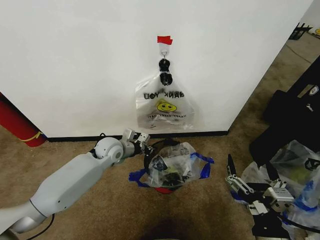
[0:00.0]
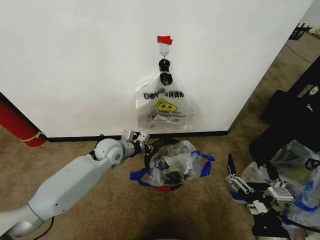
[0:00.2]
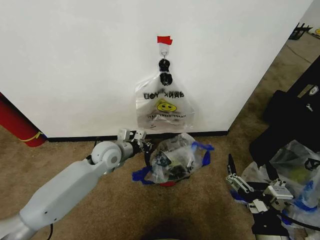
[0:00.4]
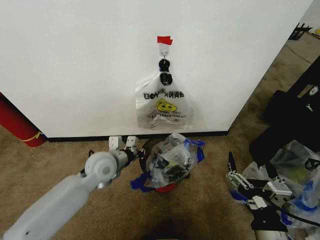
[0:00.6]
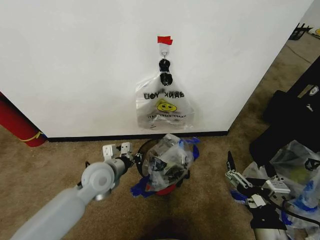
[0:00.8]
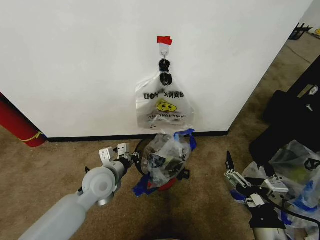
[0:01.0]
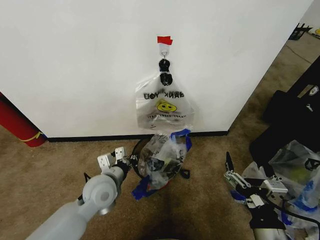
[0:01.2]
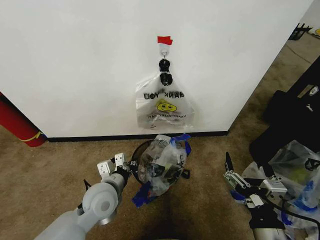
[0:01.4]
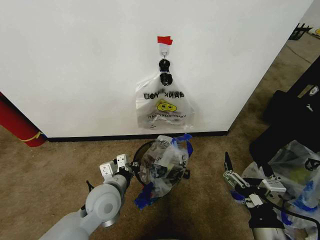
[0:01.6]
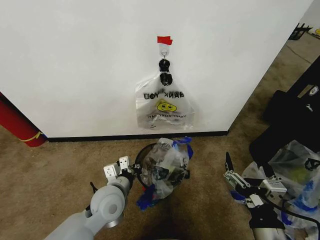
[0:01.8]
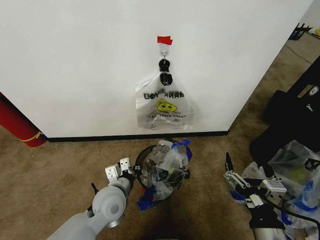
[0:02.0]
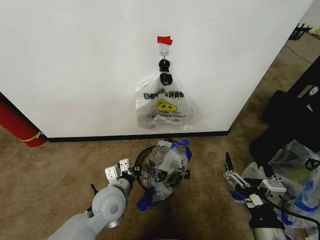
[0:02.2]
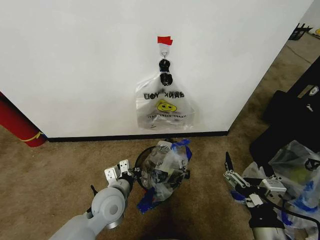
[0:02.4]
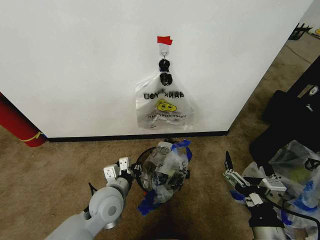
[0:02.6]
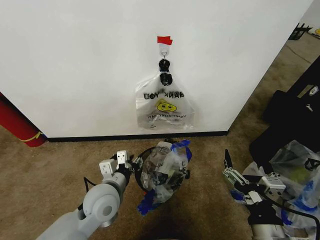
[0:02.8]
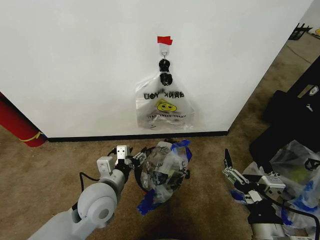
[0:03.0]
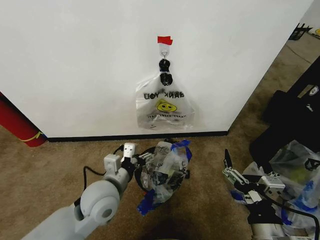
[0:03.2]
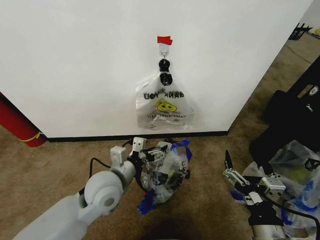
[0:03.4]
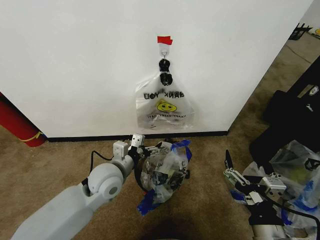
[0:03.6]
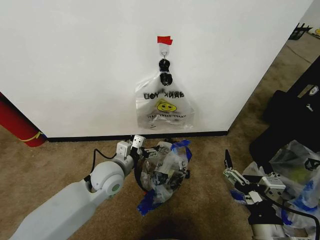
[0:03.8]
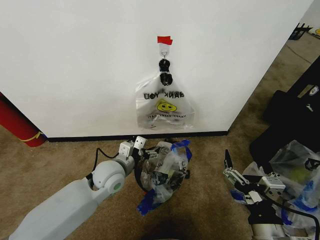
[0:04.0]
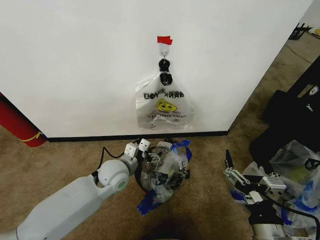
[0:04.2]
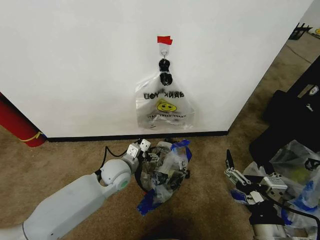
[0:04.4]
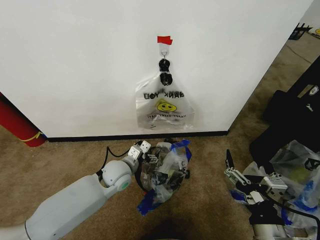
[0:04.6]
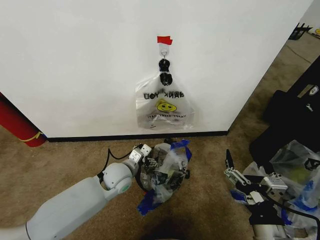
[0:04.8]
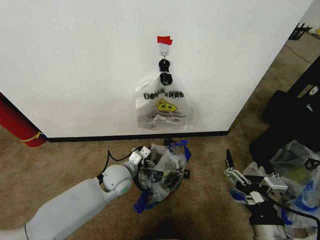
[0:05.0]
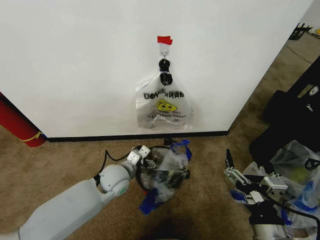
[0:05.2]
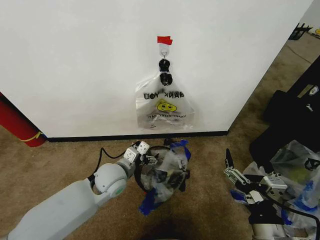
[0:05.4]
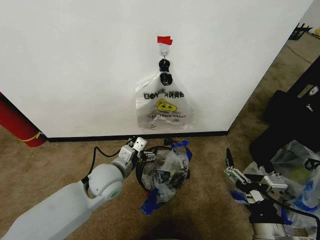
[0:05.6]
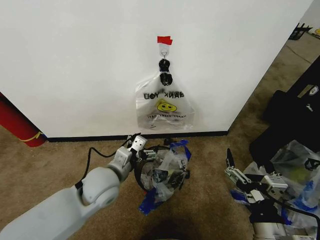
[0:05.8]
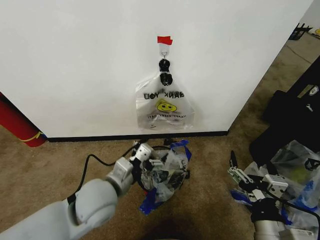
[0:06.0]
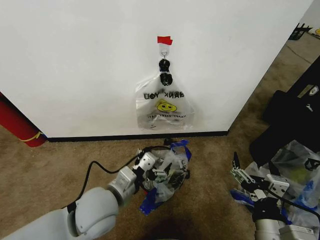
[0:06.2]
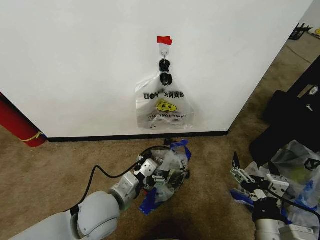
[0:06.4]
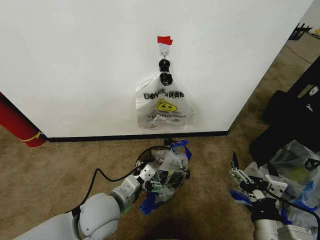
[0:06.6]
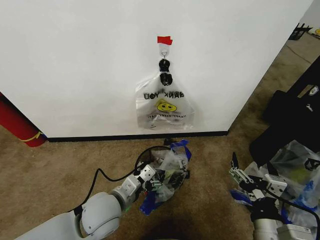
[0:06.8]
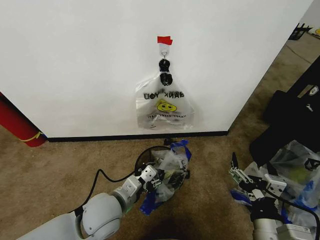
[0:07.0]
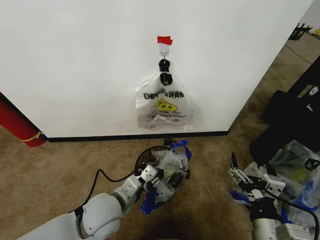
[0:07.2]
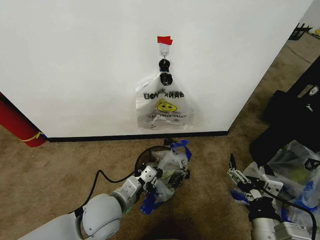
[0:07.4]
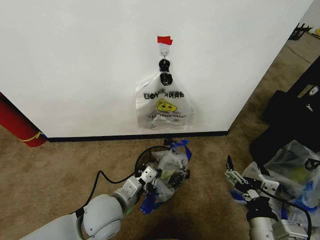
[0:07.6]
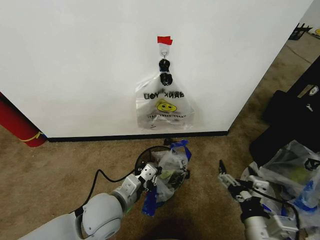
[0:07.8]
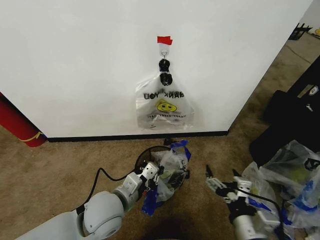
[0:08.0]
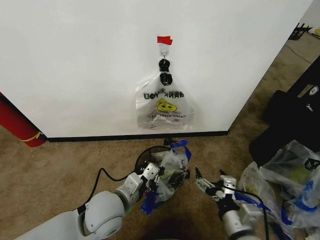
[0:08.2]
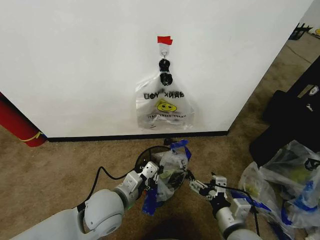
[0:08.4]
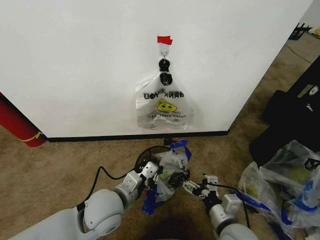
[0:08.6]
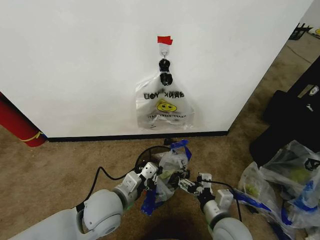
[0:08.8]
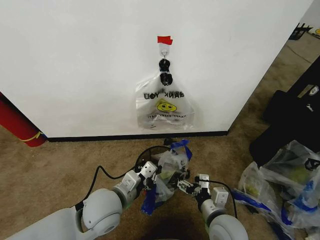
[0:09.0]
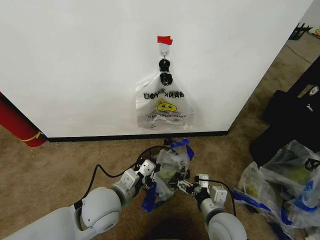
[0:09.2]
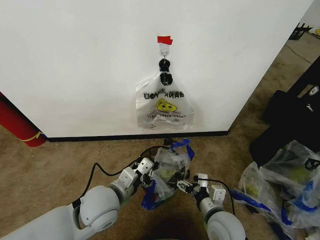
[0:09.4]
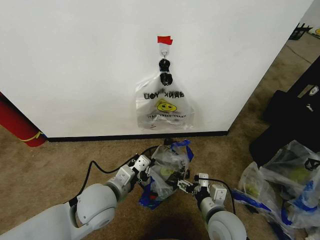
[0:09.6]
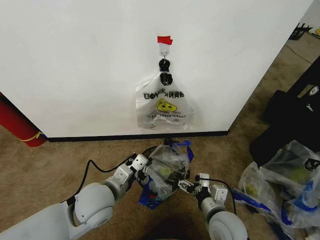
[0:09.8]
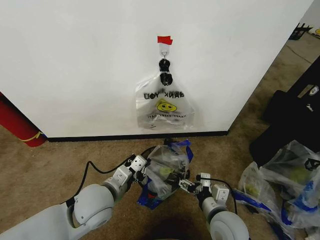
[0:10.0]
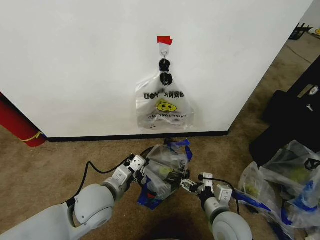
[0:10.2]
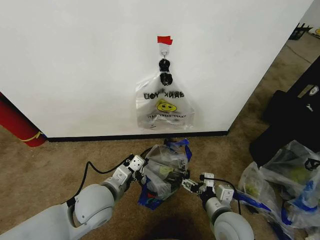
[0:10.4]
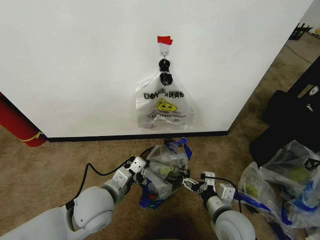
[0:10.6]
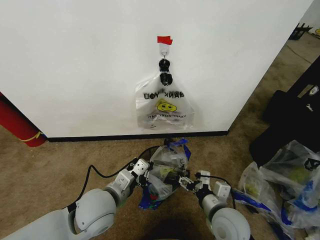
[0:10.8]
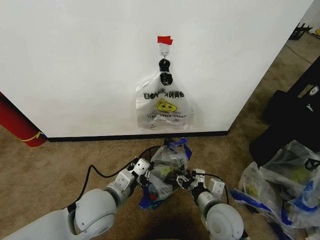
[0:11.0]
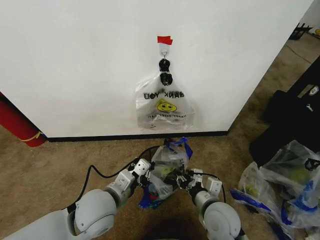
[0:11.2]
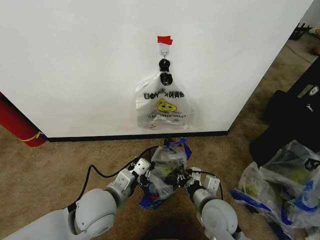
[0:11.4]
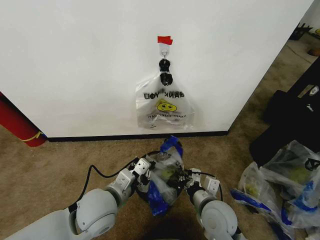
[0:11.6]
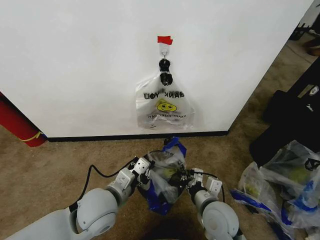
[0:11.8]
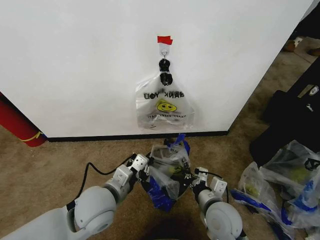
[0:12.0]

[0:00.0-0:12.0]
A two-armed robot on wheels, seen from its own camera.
Task of the whole recording: Pick up the garbage bag from the wall and place it over the trash bin.
0:00.0 to 0:01.6: The left gripper moves backward, approximately 20 cm.
0:01.6 to 0:03.0: The left gripper opens.
0:03.0 to 0:04.4: The left gripper moves forward and downward, approximately 10 cm.
0:04.4 to 0:06.0: The left gripper heads backward and upward, covering approximately 15 cm.
0:06.0 to 0:07.6: The left gripper changes place by about 5 cm, and closes its fingers.
0:07.6 to 0:09.0: The right gripper shifts roughly 15 cm forward, downward and to the left.
0:09.0 to 0:10.4: The grippers stay close to where they were, moving slightly.
0:10.4 to 0:12.0: The right gripper closes.

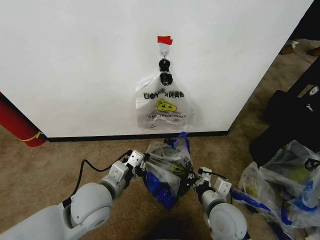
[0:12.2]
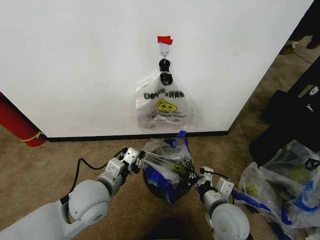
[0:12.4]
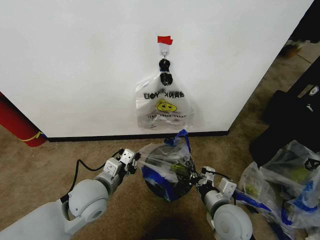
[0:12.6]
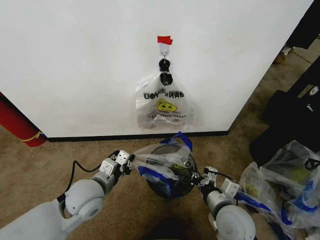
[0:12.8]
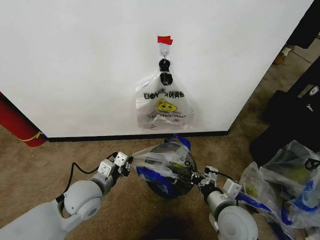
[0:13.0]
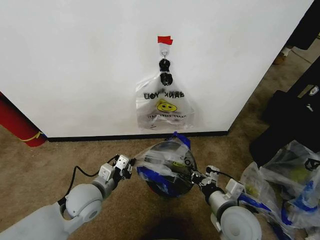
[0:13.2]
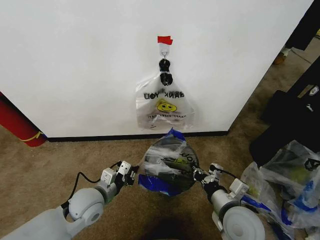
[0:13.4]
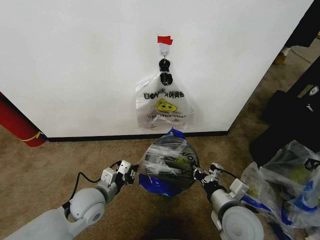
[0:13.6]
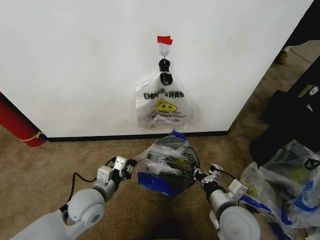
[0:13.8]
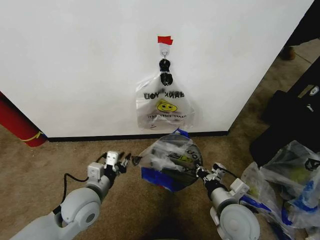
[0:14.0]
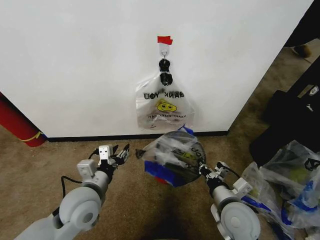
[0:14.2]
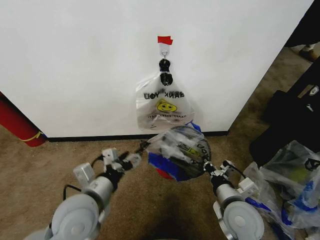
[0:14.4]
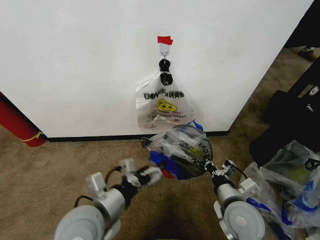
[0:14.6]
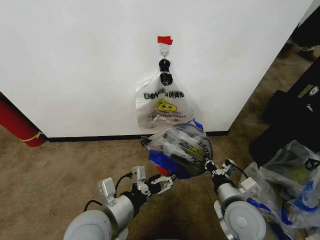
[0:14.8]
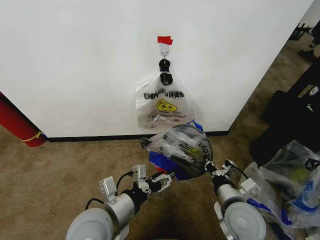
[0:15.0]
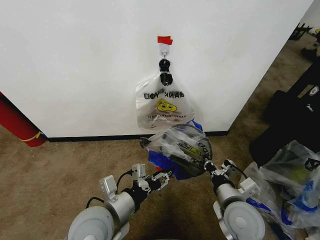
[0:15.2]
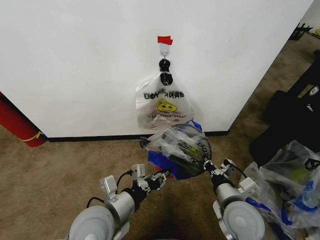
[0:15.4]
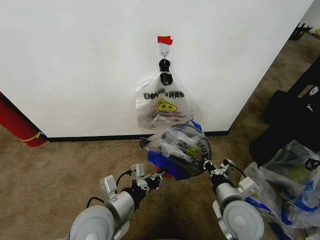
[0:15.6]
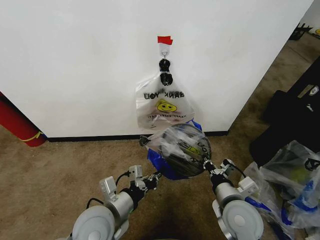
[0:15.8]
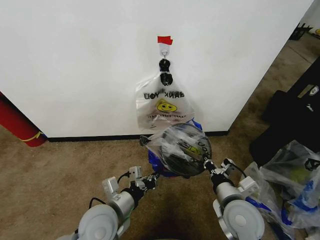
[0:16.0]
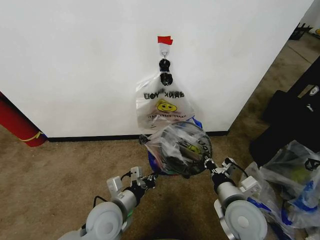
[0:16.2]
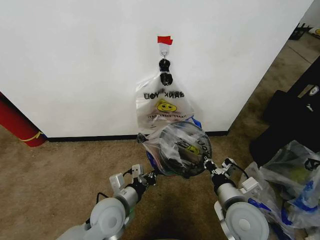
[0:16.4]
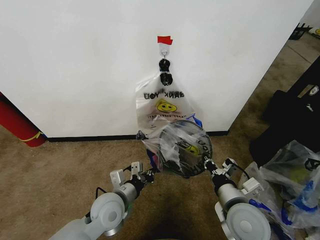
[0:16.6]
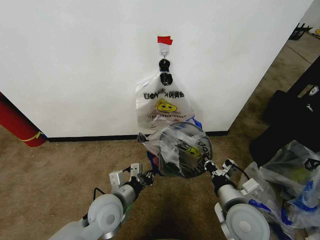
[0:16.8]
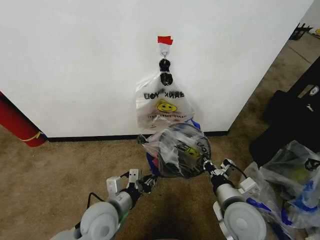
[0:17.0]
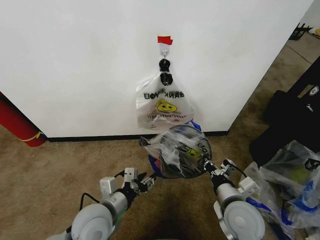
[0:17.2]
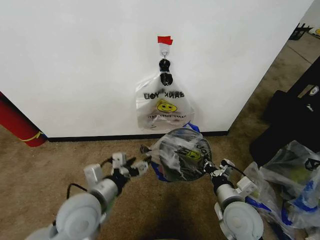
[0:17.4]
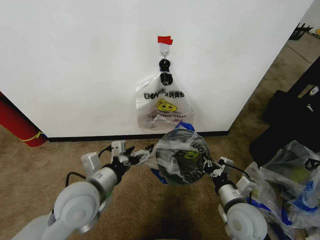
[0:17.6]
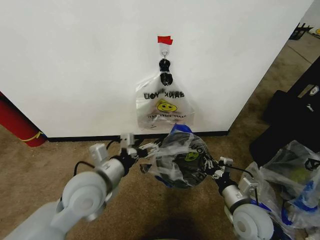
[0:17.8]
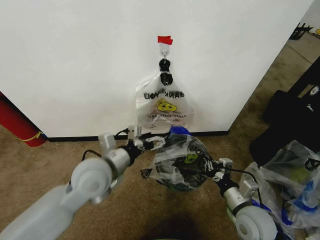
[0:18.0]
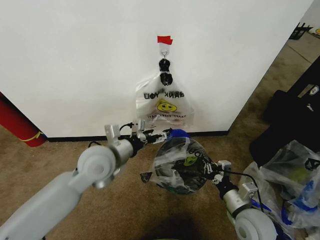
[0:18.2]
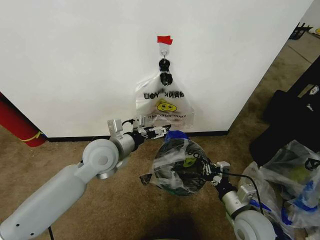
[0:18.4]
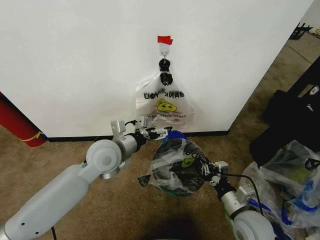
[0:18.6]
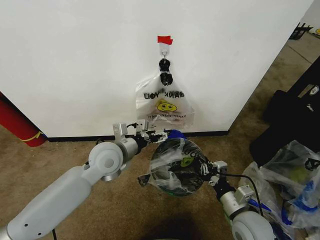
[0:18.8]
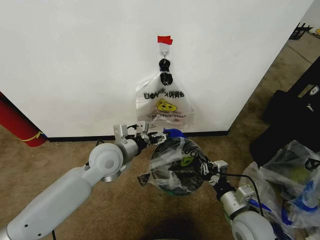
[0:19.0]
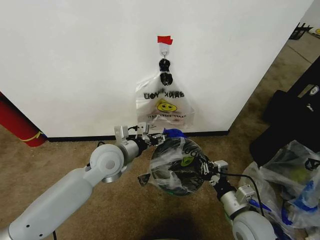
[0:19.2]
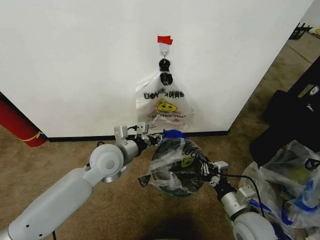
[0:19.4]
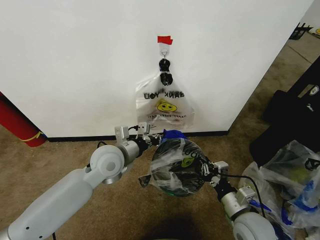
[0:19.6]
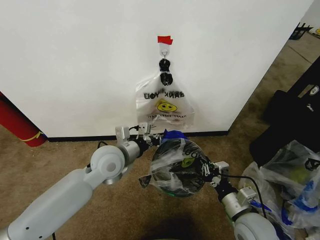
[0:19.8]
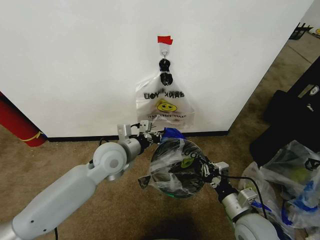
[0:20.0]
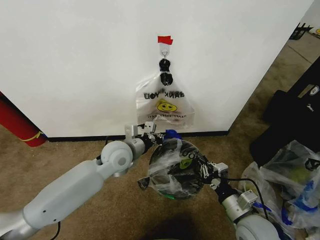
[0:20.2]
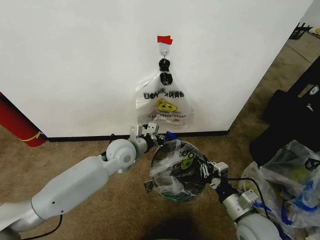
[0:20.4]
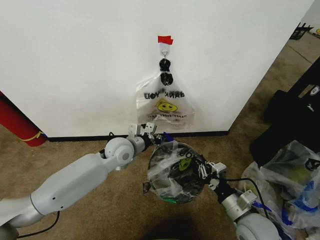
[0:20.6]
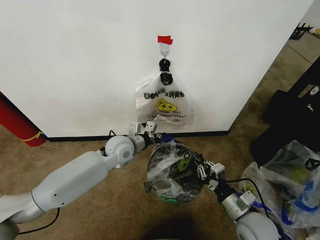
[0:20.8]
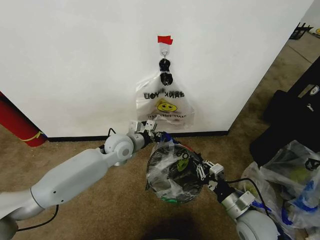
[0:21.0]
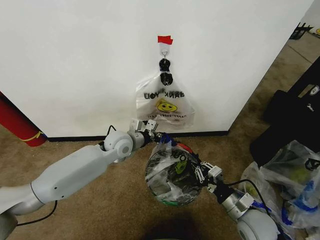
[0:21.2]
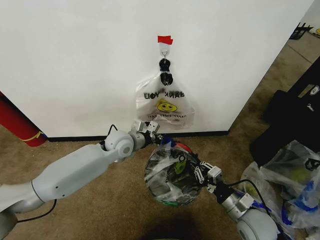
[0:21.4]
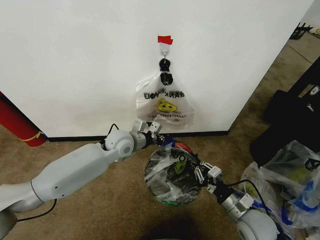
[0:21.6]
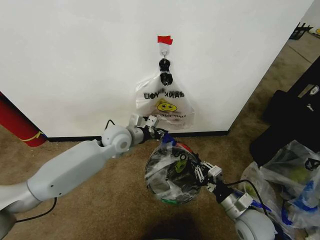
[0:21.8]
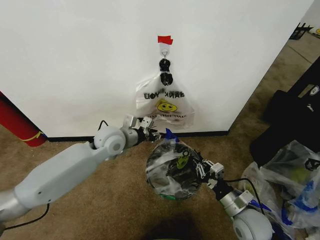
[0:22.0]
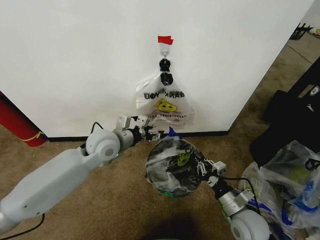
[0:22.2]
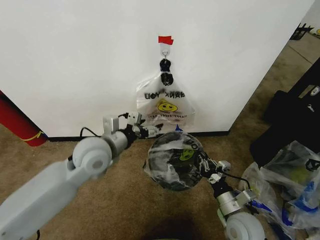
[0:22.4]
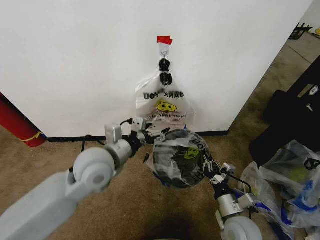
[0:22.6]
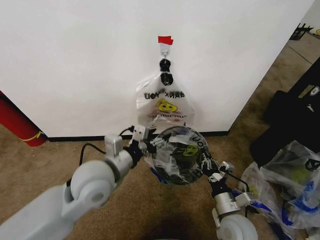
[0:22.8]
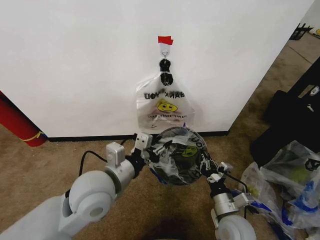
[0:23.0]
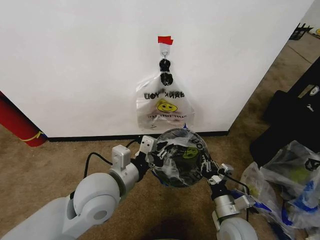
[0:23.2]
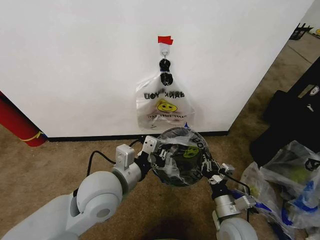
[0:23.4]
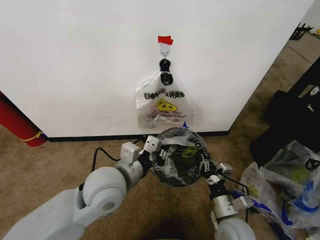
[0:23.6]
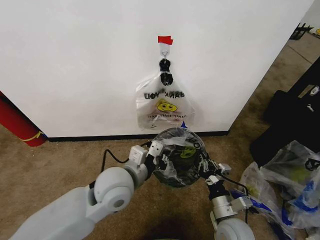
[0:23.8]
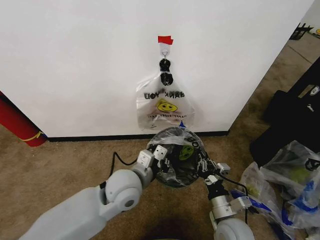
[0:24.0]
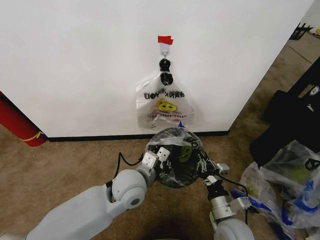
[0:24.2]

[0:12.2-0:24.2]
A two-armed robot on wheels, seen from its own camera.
Task of the whole recording: Pick up the garbage bag from the wall and place it over the trash bin.
0:12.2 to 0:13.8: The left gripper shifts some 5 cm downward.
0:13.8 to 0:15.2: The left gripper heads backward, upward and to the right, covering about 10 cm, and opens.
0:15.2 to 0:16.6: The left gripper moves downward and forward, roughly 10 cm, and closes its fingers.
0:16.6 to 0:18.2: The left gripper travels upward and forward by approximately 15 cm, and opens; the right gripper heads downward and to the right, covering about 10 cm.
0:18.2 to 0:19.8: The left gripper closes its fingers.
0:19.8 to 0:21.2: The left gripper travels forward by approximately 10 cm.
0:21.2 to 0:22.6: The left gripper shifts roughly 15 cm backward and upward, and opens its fingers.
0:22.6 to 0:24.2: The left gripper shifts approximately 10 cm downward and to the right, and closes up.
